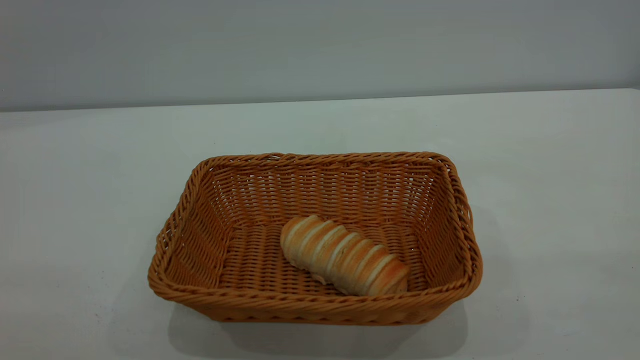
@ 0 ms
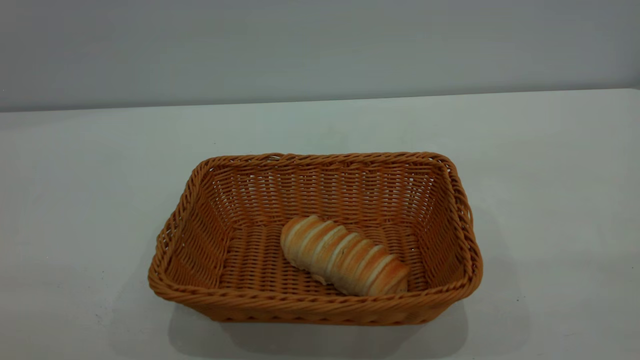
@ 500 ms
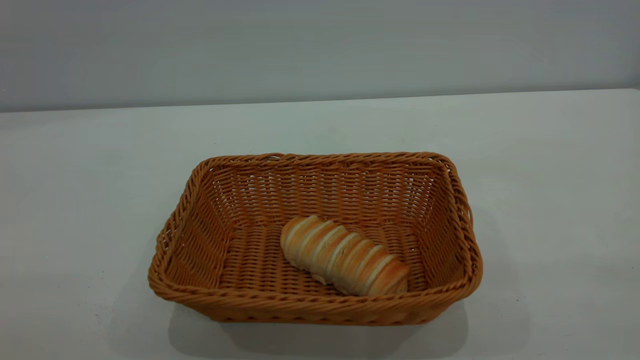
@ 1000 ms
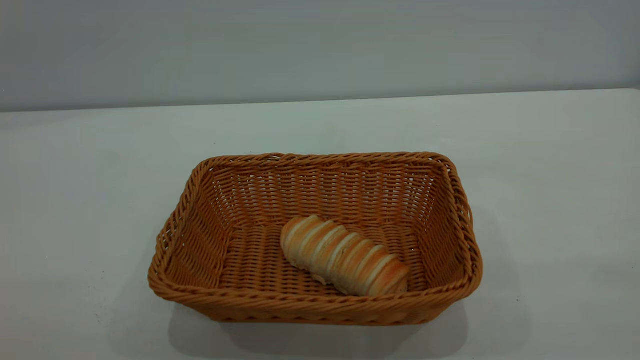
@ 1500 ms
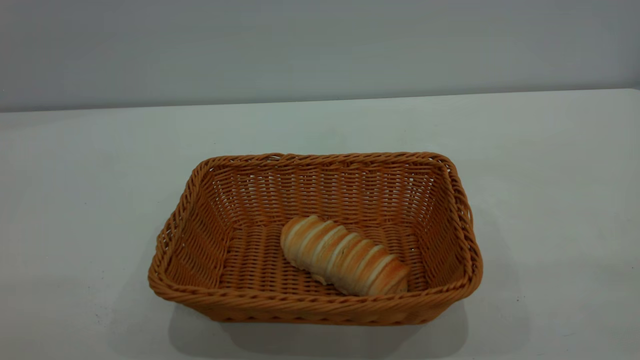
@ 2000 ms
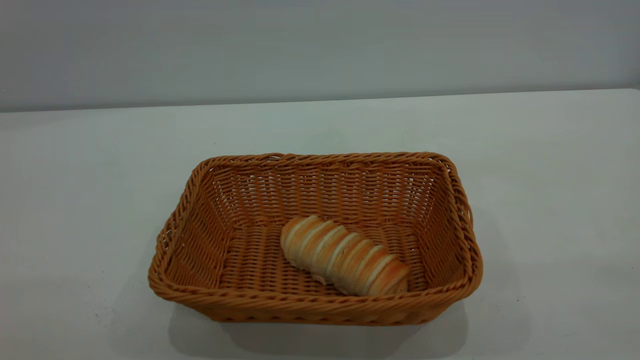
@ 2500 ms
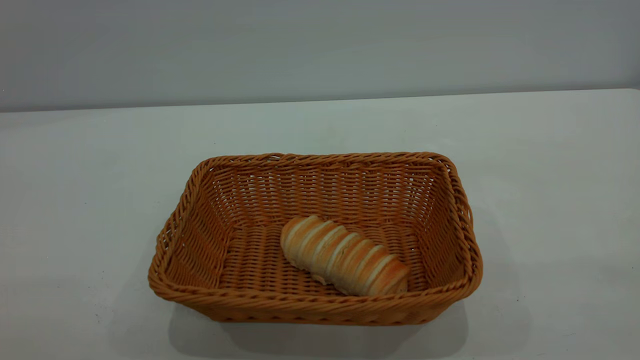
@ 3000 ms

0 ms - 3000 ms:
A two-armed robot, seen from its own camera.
Task of the whole recording: One hand grasps the yellow basket and places it in the middle of the table, while the other hand picks up the long bread and puts it into the yellow basket.
1500 ms - 3000 ms: Both grippers stay about where they are.

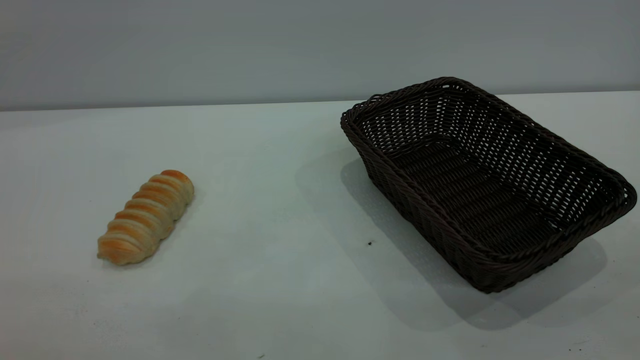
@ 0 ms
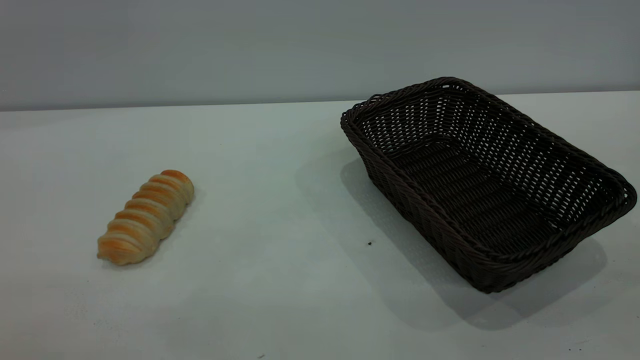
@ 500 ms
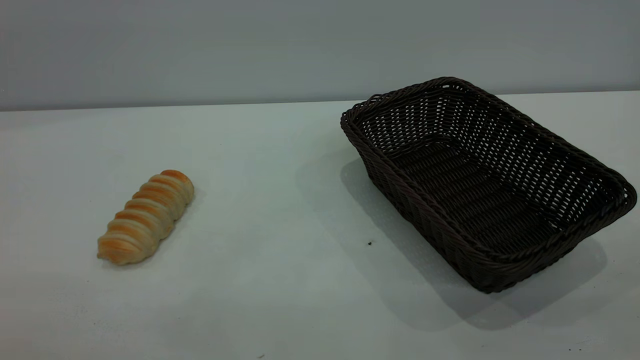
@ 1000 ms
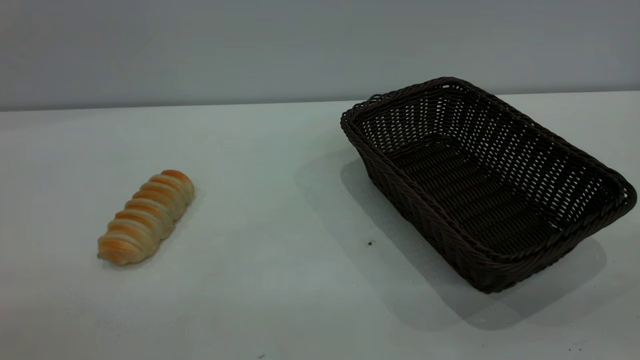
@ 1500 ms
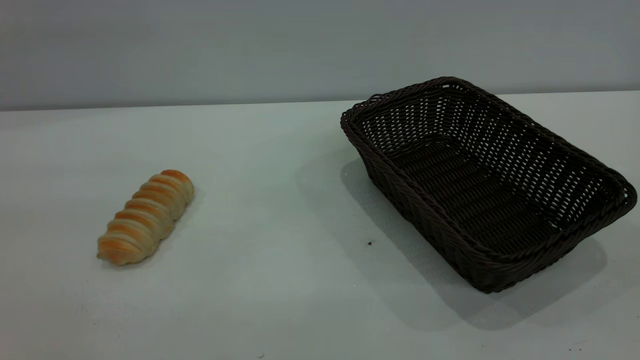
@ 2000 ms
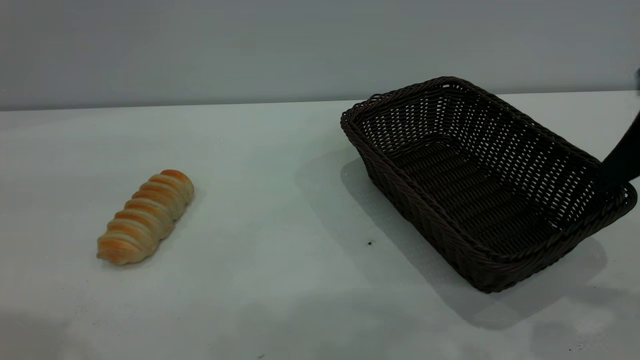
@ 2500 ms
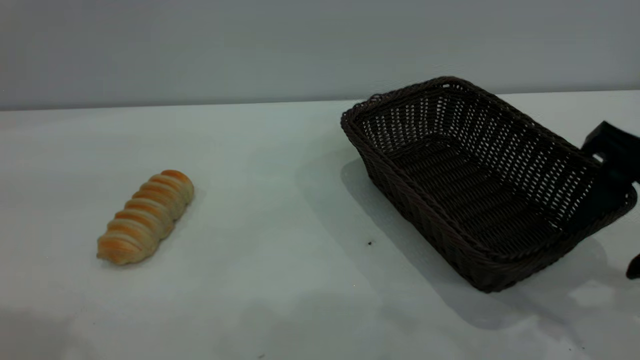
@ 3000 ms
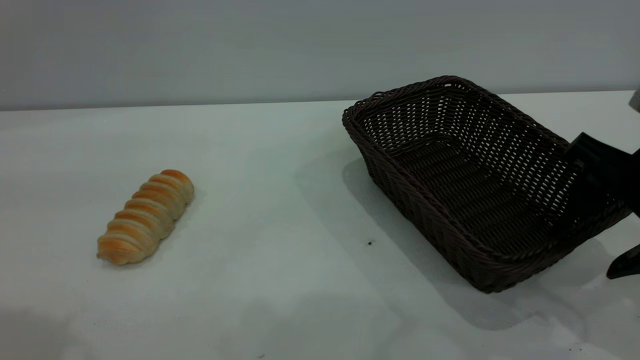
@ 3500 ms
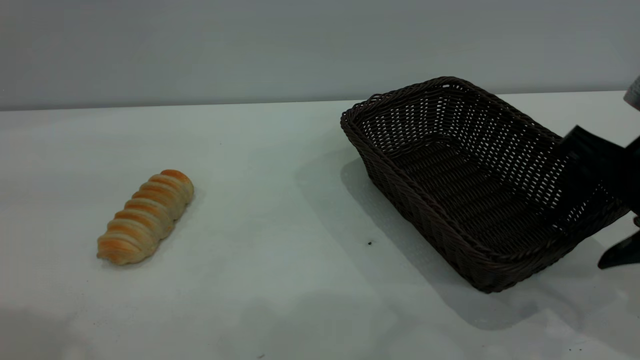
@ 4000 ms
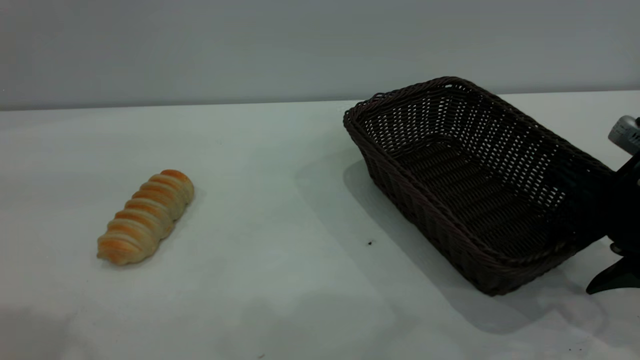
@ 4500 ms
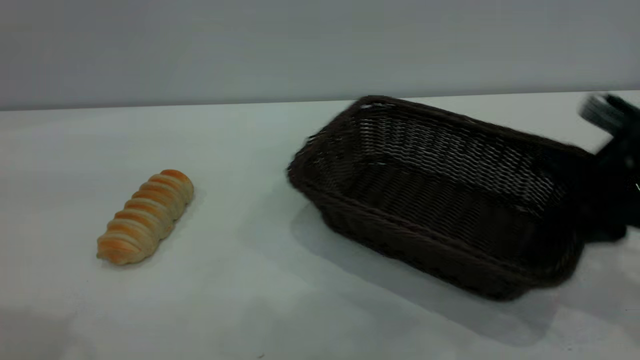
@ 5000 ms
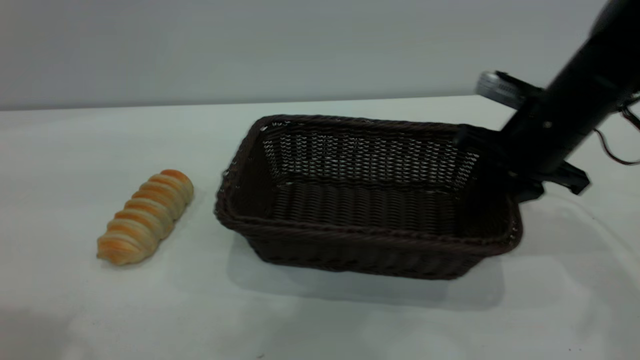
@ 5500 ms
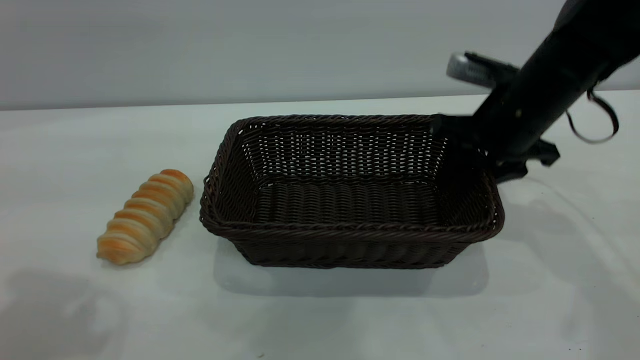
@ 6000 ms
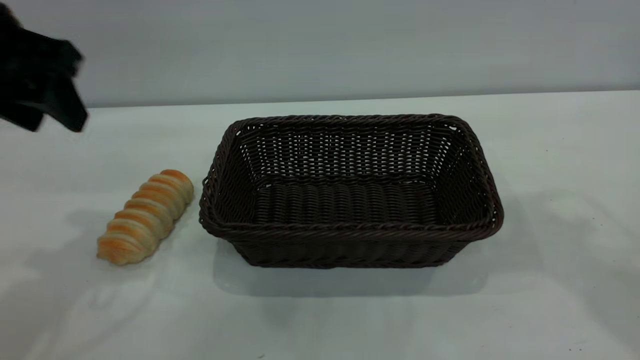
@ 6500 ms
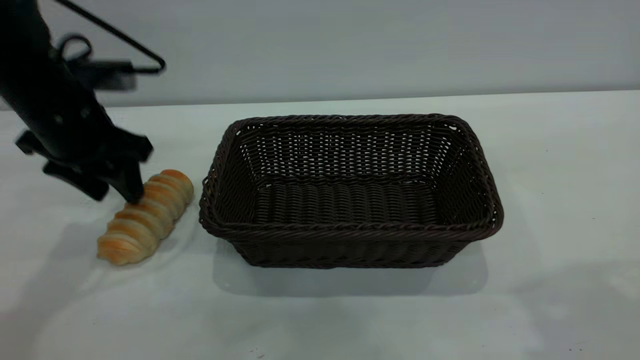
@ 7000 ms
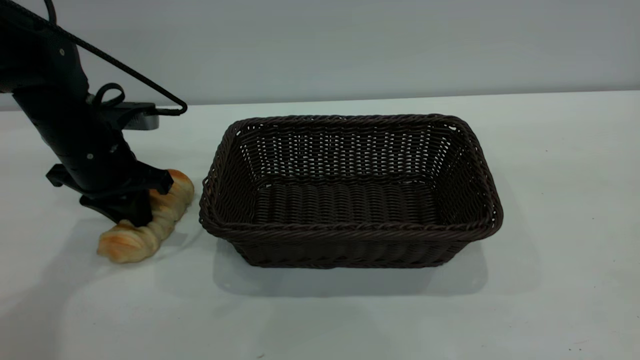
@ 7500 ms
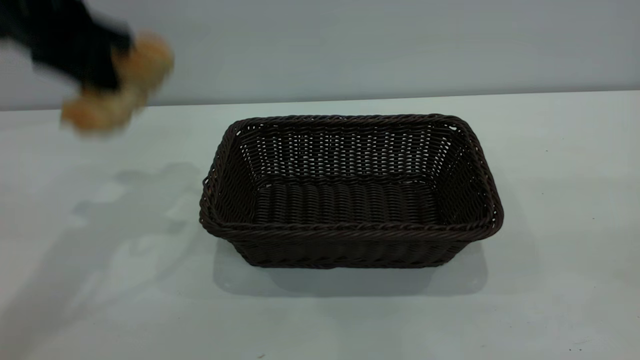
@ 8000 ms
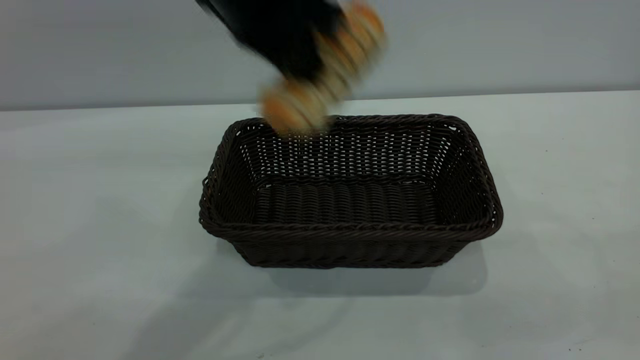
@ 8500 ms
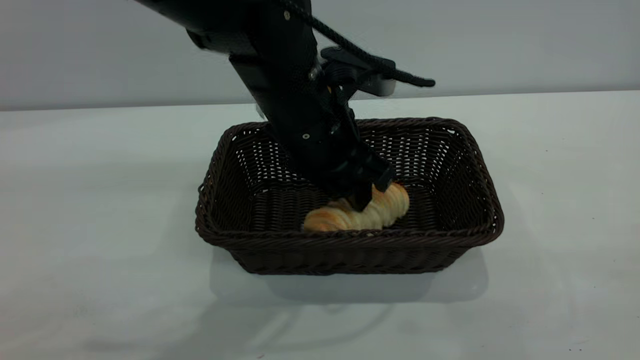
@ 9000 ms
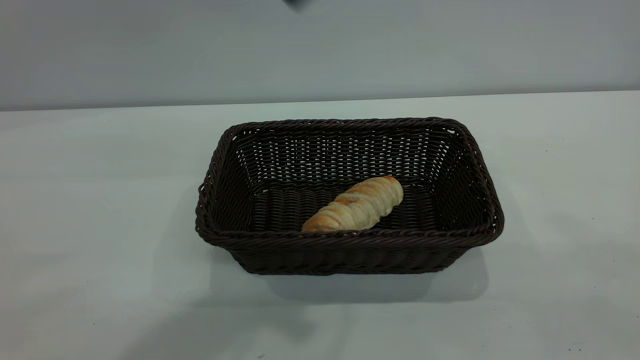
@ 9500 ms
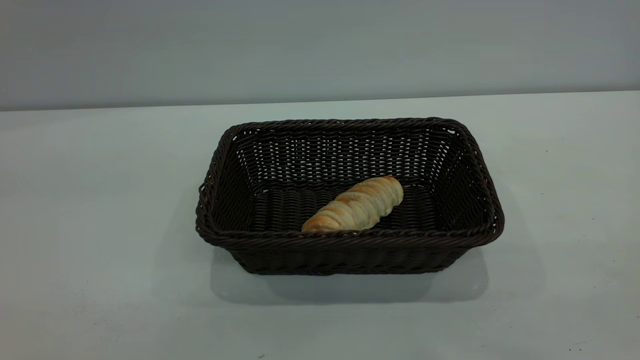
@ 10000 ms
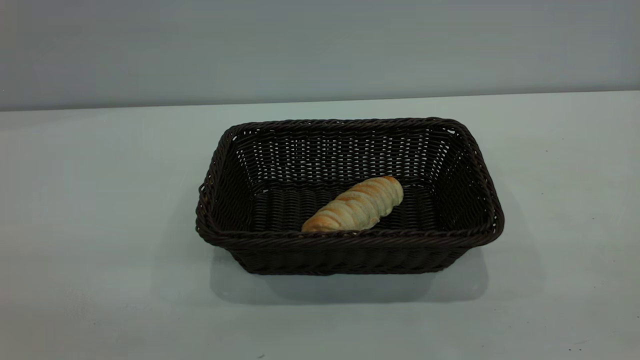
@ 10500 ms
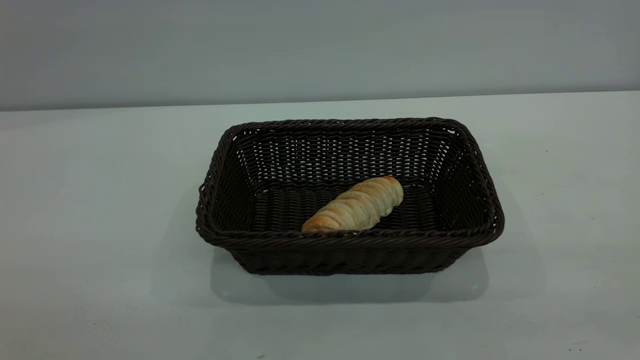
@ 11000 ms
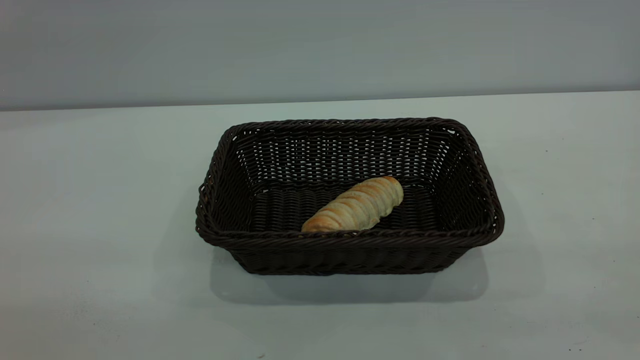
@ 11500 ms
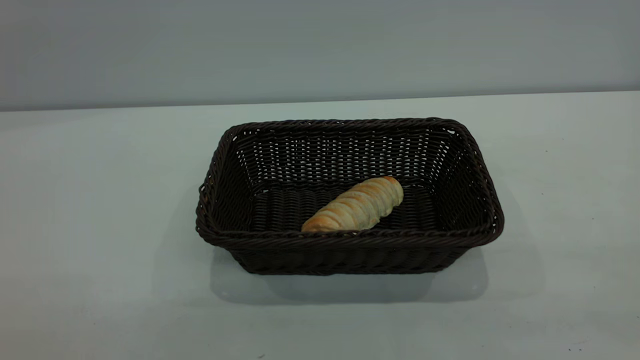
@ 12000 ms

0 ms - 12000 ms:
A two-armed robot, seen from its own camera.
Task of the whole recording: One hand grasps the black basket and places it in the middle of the table, while the other hand picks up the long bread and puts it into the black basket.
Step, 0 ms - 6000 ms: Move the basket to the center of view.
Step, 8000 ms - 9000 ms: place the bread into the basket.
2000 ms - 4000 ms: The right gripper is displaced downward and forward by about 25 cm.
4000 ms - 6000 ms: The right gripper heads forward and to the left, covering some 15 cm, and closes, then reopens. The left gripper moves approximately 5 cm.
6000 ms - 8000 ms: The right gripper travels backward and upward by some 40 cm. Meanwhile the left gripper is displaced forward by roughly 15 cm, goes downward and returns, some 25 cm each way, and closes its fingers.
8000 ms - 10000 ms: The right gripper moves downward, some 5 cm. The left gripper is displaced backward and upward by roughly 35 cm, and opens.
